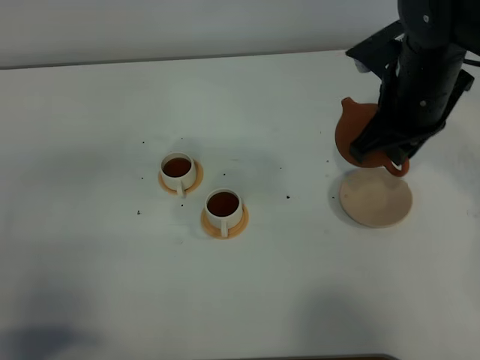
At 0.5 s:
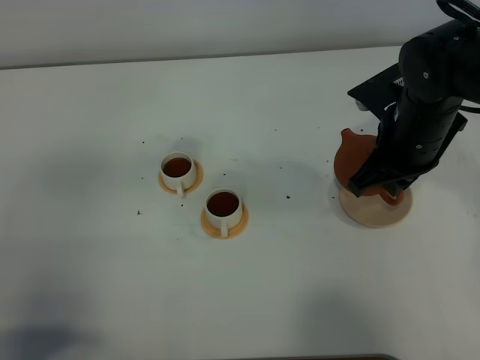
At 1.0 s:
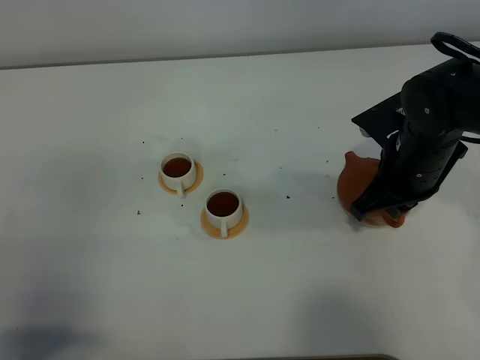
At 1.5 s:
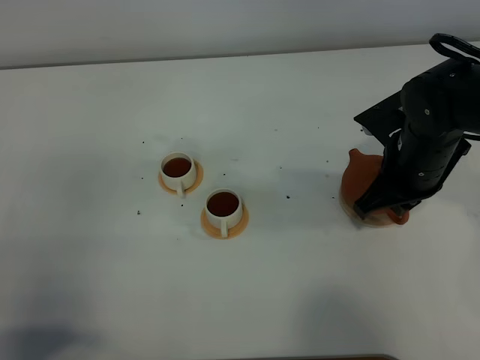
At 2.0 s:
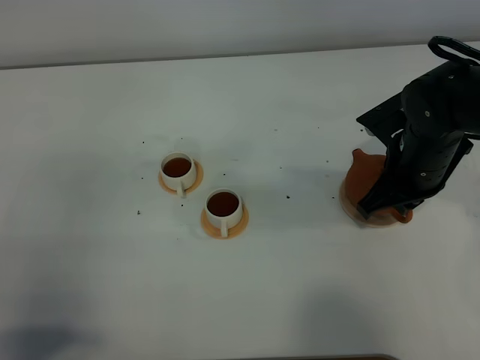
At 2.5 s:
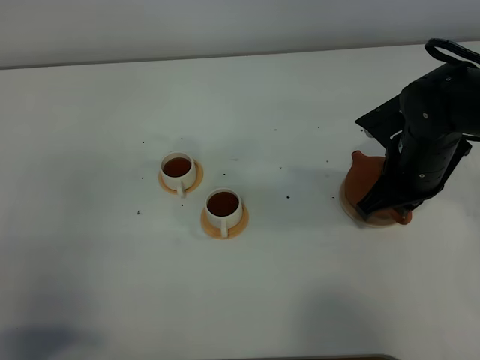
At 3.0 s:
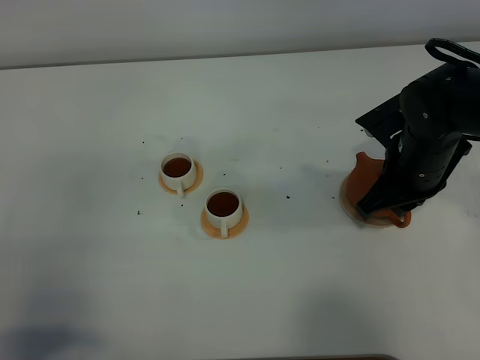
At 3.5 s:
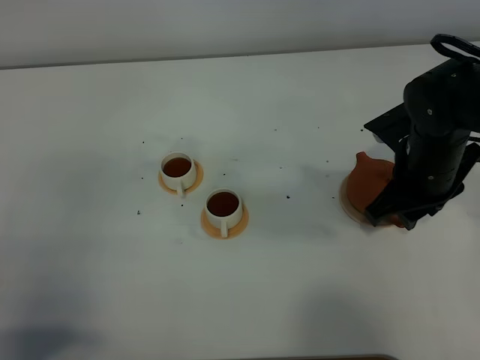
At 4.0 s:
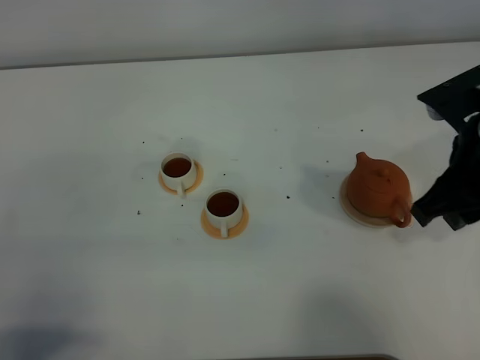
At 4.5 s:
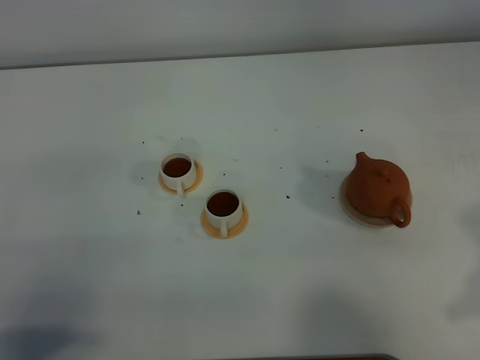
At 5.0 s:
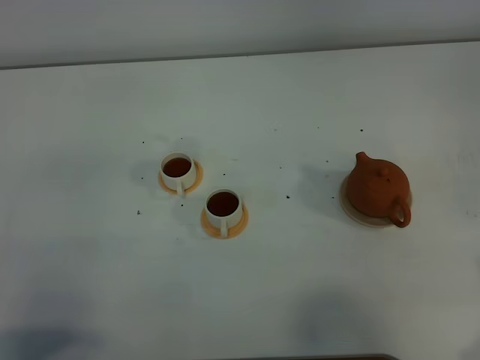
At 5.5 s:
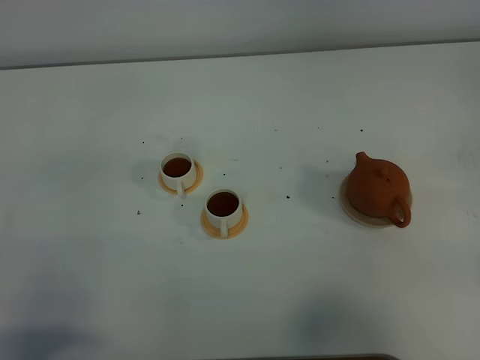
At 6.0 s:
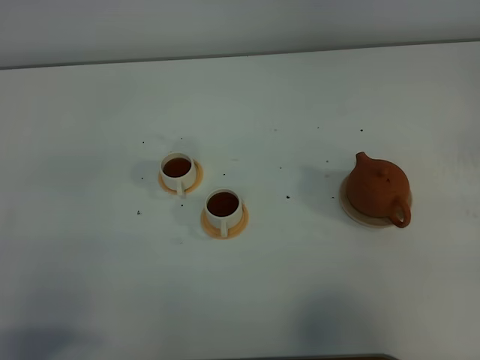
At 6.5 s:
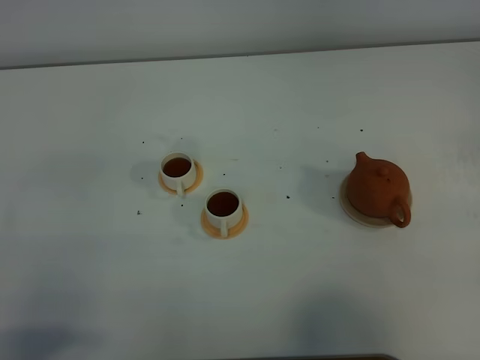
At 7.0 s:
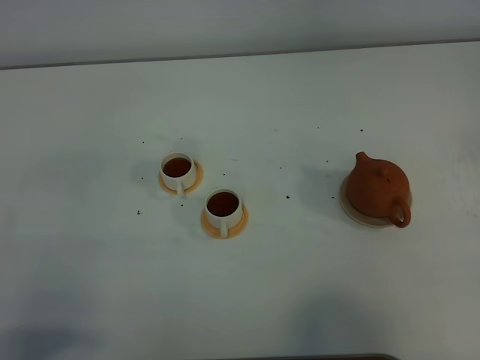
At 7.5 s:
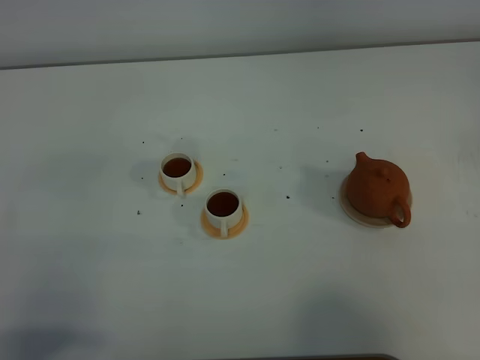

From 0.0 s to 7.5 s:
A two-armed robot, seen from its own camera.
Task of the whole recording: grasp the brown teapot and pour the tea into the two white teacups one by one, put the brown teapot back in its original place.
From 0.0 s to 2.0 s: The right gripper shifts approximately 10 cm downward.
From 2.0 s to 4.0 s: The right gripper heads upward and backward, covering some 15 cm, and opens.
From 4.0 s to 5.5 s: The right gripper shifts approximately 20 cm backward and to the right, and closes.

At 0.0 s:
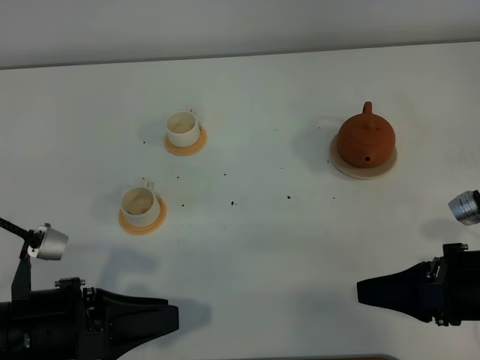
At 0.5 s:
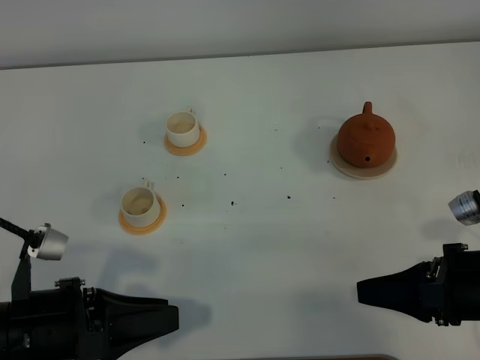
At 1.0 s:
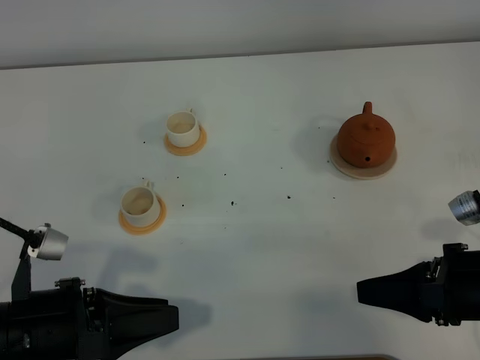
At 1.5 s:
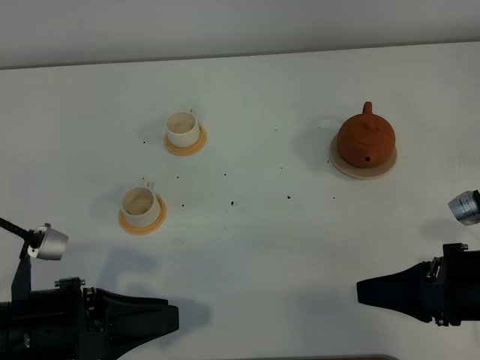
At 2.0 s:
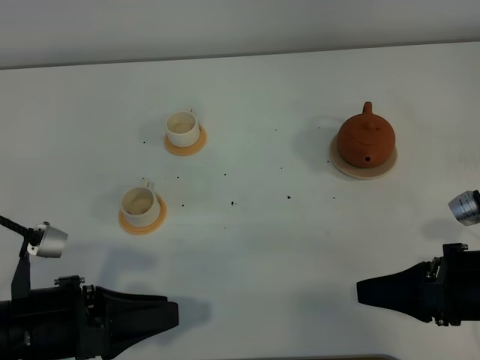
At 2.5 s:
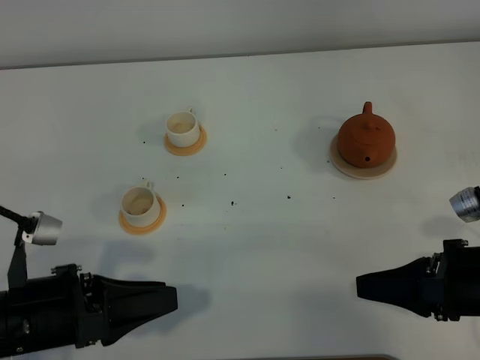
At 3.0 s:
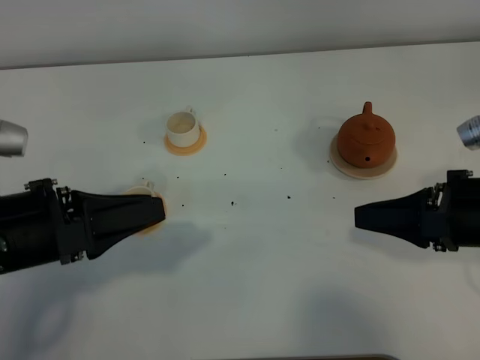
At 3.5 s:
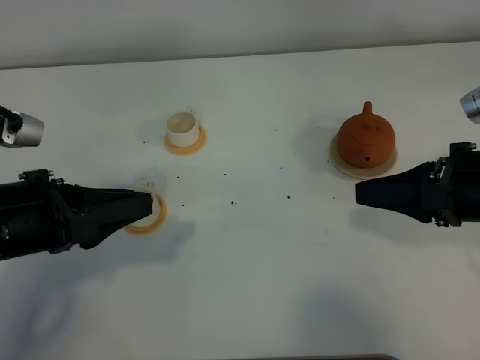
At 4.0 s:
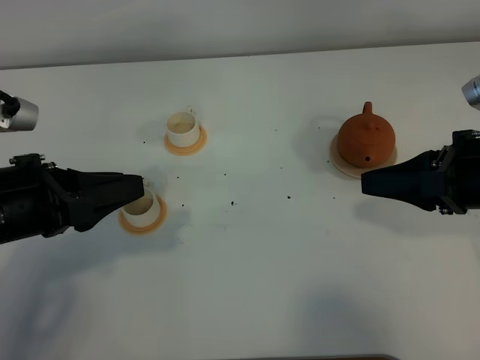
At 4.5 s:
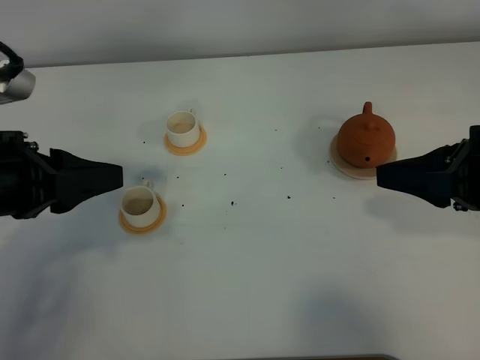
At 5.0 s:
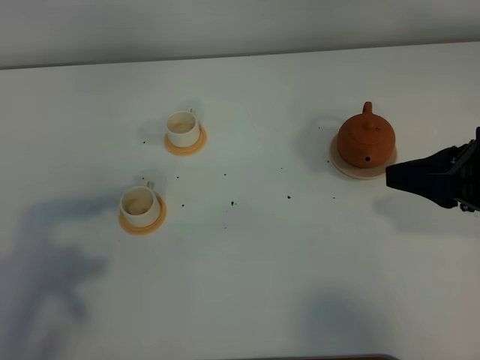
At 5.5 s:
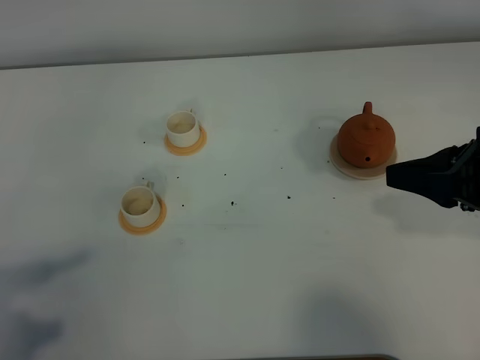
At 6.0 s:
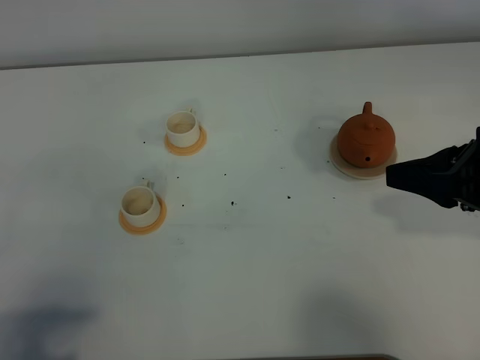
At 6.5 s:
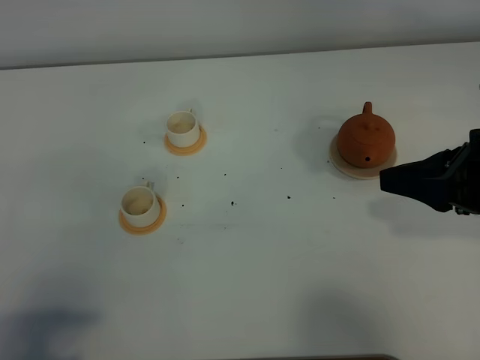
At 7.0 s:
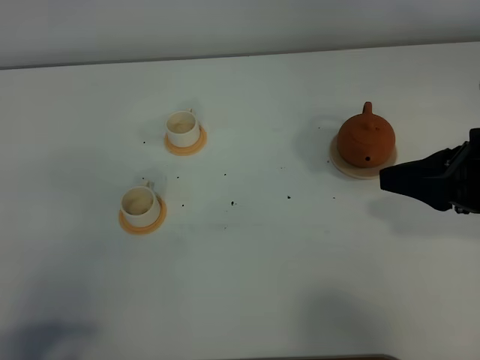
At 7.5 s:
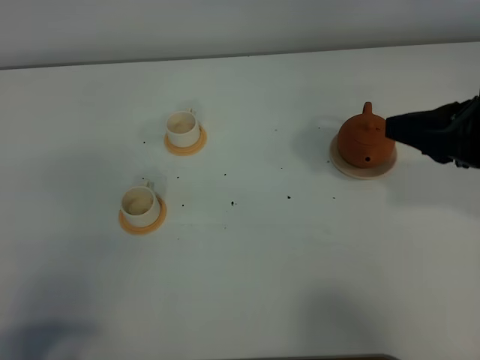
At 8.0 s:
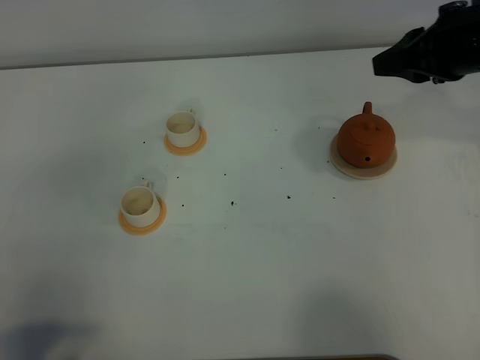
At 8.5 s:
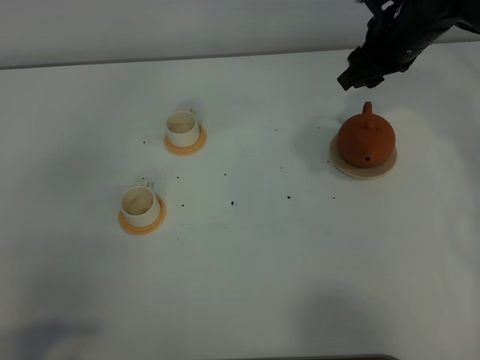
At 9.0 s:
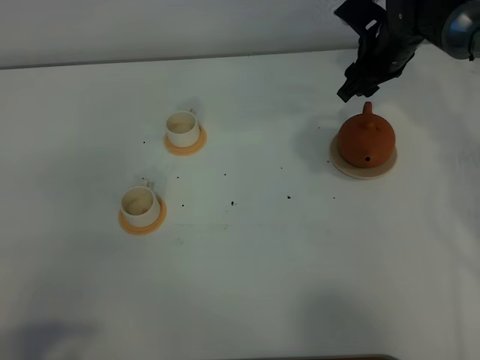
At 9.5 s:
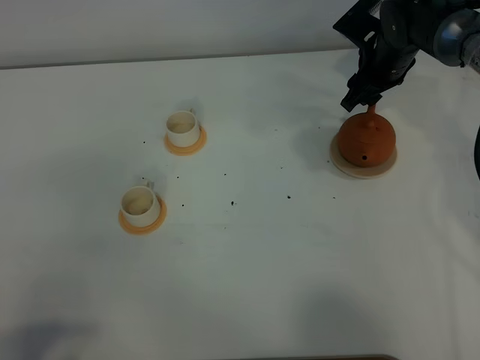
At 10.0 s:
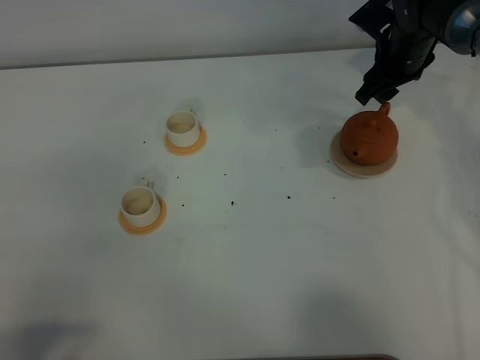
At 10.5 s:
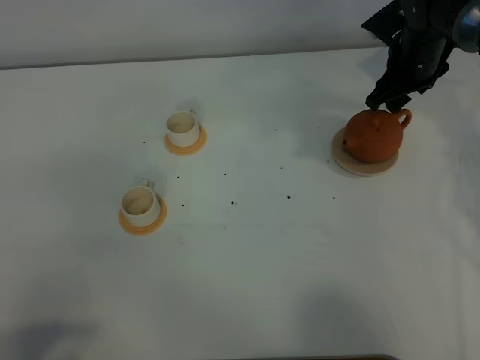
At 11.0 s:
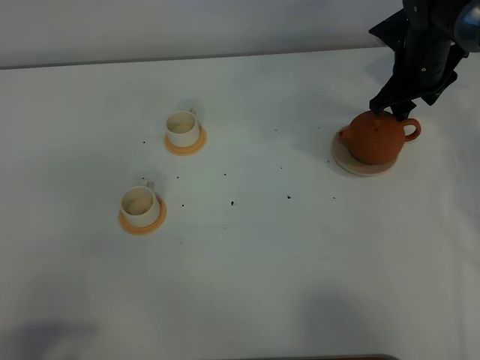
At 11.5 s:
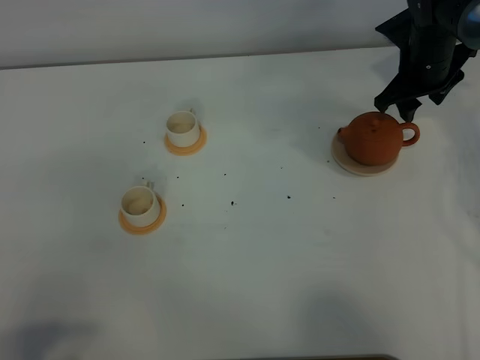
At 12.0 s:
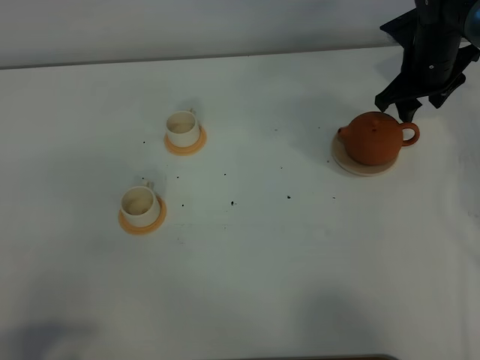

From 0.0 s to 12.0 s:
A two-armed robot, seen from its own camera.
Task of the whole recording: grasp the brown teapot and pour the tea into the two white teacups one by one, put the brown teapot back in its original place.
From 0.0 s to 2.0 s: Both grippers stay about where they are.
From 2.0 s to 4.0 s: The two grippers go roughly 10 cm upward and forward.
From 4.0 s to 6.0 s: The left gripper is displaced backward by approximately 20 cm.
From 6.0 s to 8.0 s: The right gripper moves forward, roughly 15 cm.
From 8.0 s to 10.0 s: The right gripper moves forward and downward, approximately 20 cm, and opens up.
From 10.0 s to 12.0 s: The grippers make only small movements.

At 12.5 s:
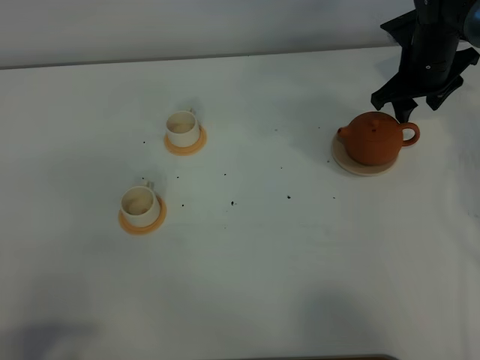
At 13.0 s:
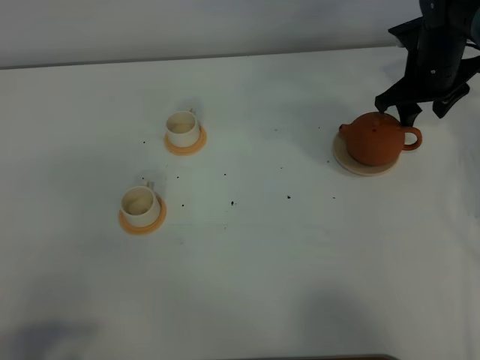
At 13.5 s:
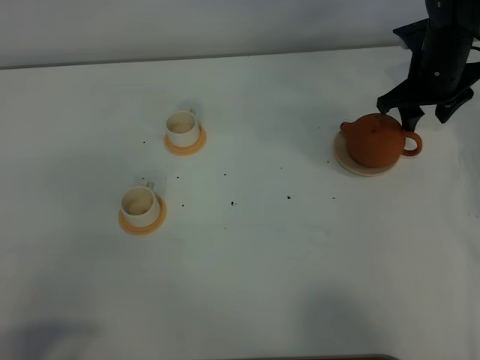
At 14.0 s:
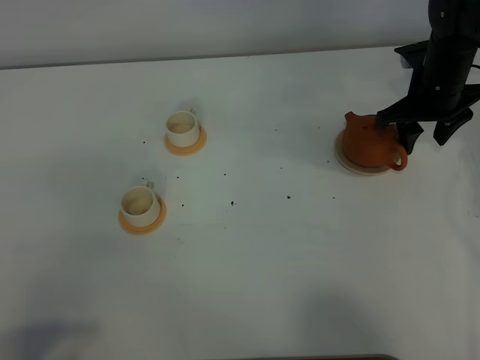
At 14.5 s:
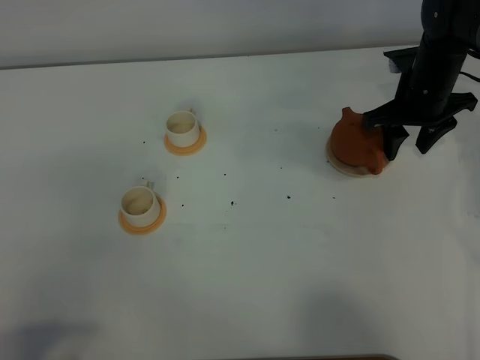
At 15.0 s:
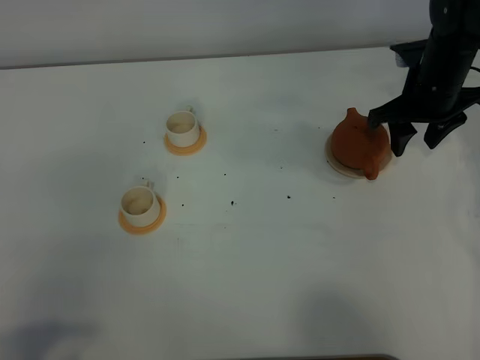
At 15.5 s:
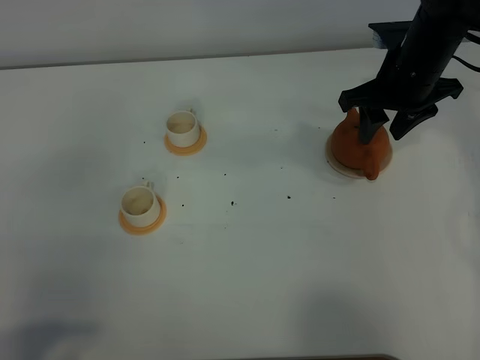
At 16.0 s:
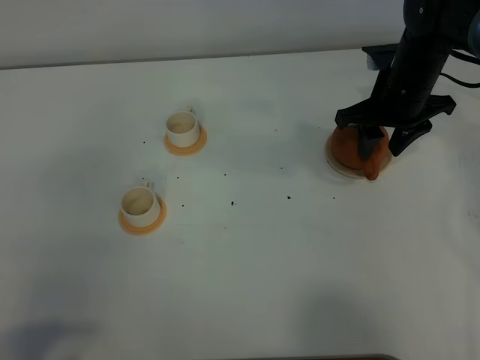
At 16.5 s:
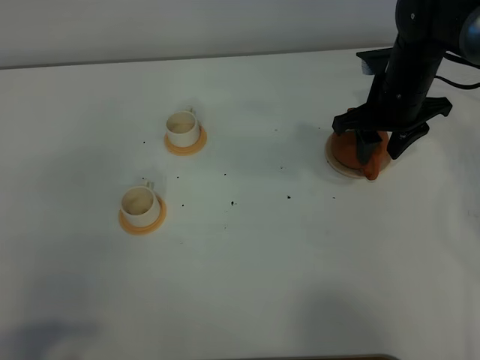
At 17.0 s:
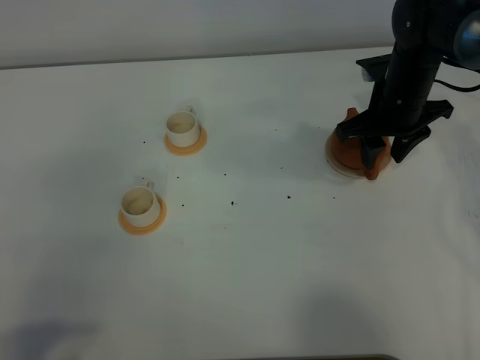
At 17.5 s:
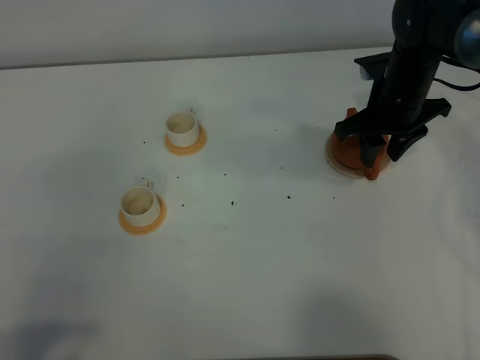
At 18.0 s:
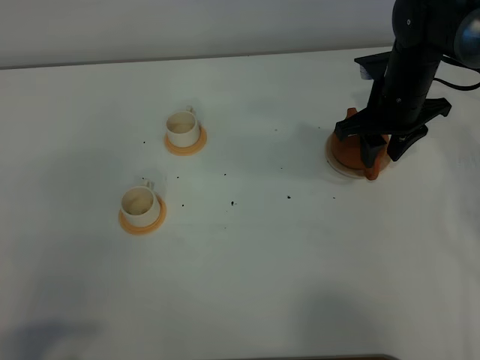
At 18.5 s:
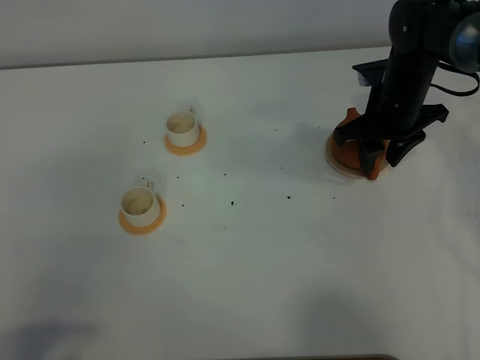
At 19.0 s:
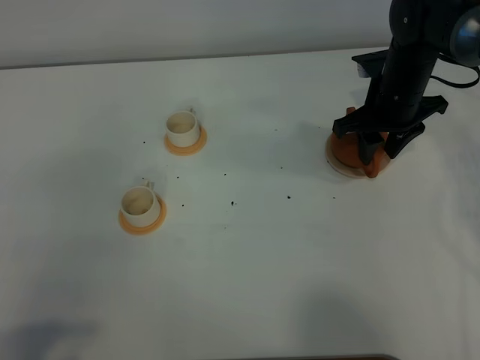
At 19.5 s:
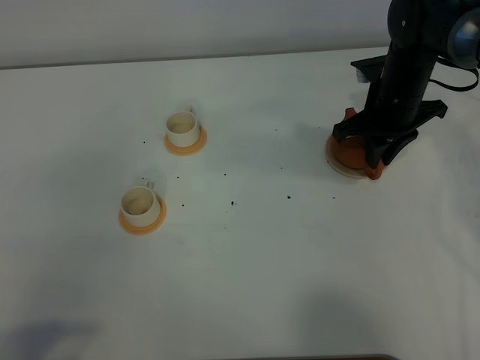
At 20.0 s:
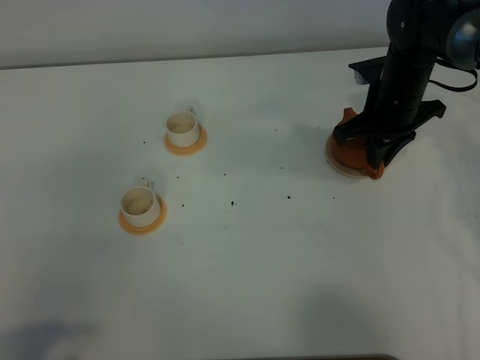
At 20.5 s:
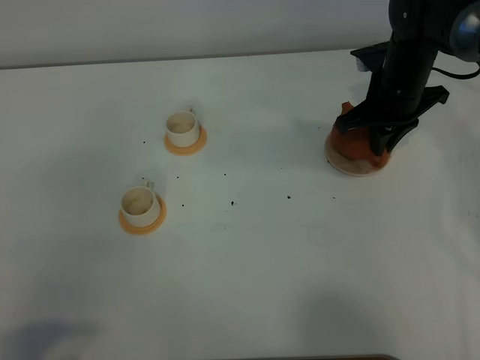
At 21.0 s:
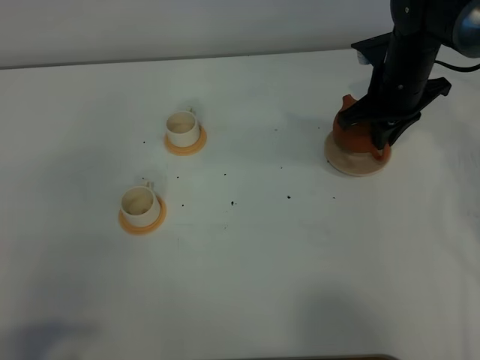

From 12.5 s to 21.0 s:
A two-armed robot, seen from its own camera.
Task of the whole recording: grasp the brown teapot and pour the tea into the two white teacups one by one, put the brown teapot back in its original place.
Step, from 12.5 s to 20.5 s: Pick up the teapot with the right gripper.
From 12.5 s to 14.5 s: There are only small adjustments of the grippers.
From 14.5 s to 16.5 s: The right gripper ends up some 5 cm from where it was.
From 16.5 s to 19.0 s: The grippers stay close to where they were, moving slightly.
From 19.0 s to 21.0 s: The right gripper closes up.
